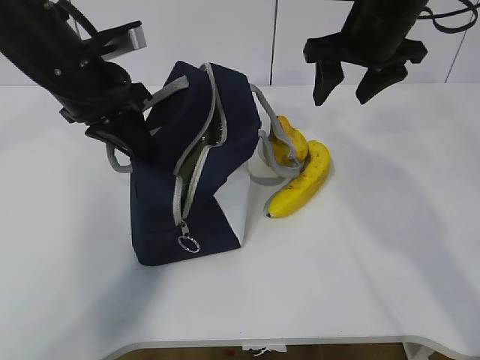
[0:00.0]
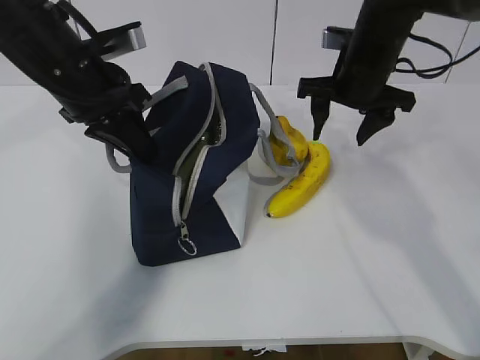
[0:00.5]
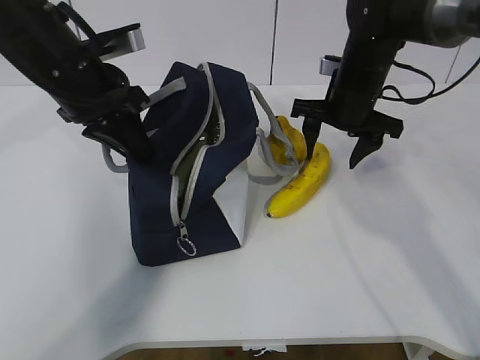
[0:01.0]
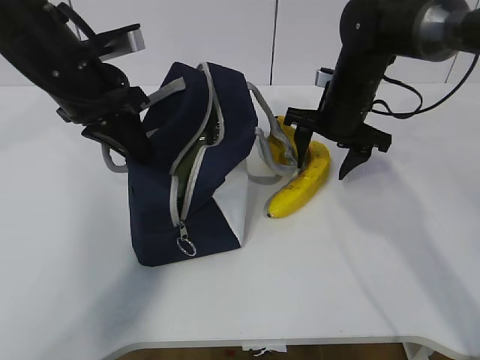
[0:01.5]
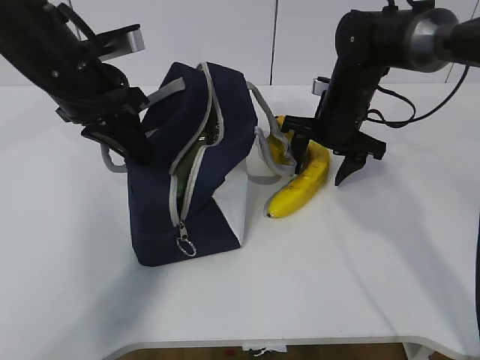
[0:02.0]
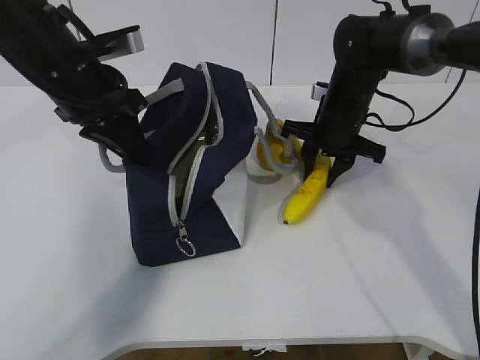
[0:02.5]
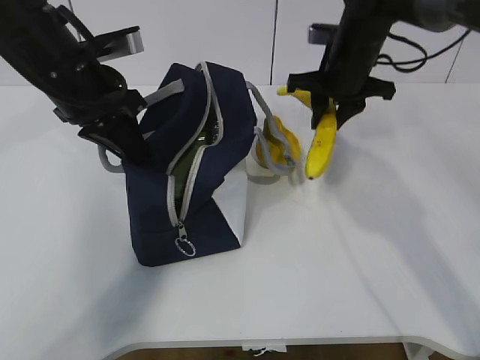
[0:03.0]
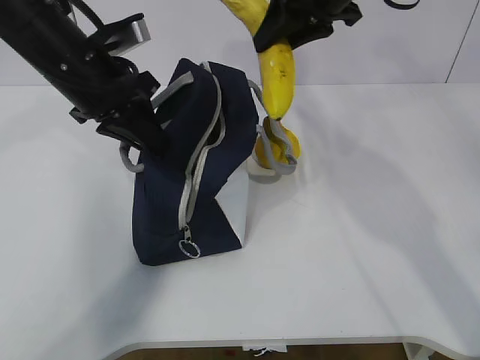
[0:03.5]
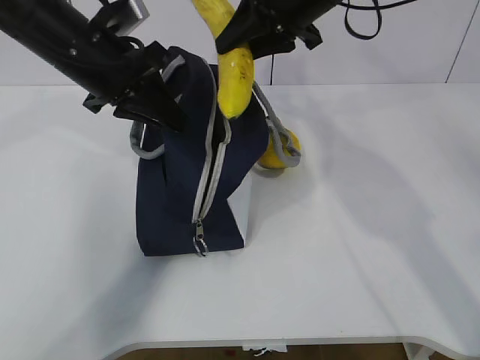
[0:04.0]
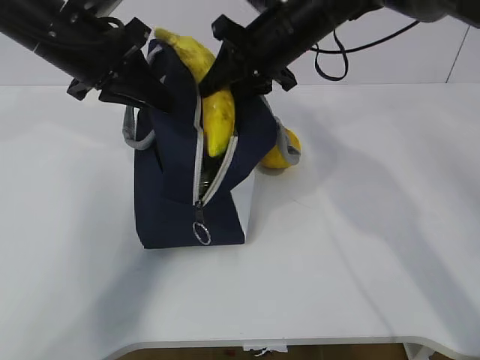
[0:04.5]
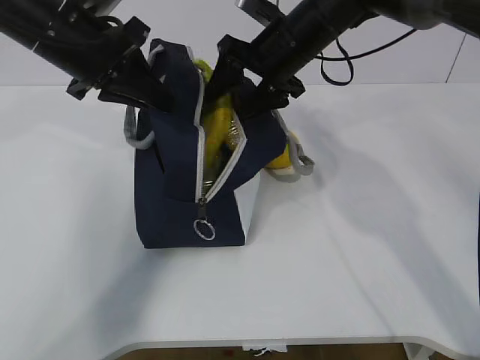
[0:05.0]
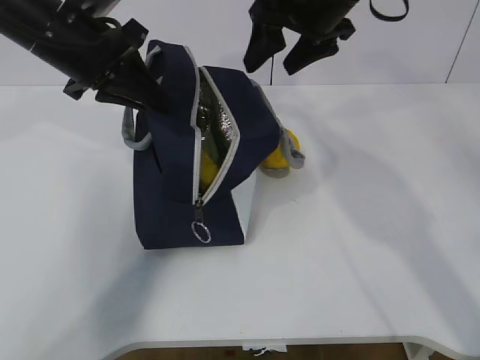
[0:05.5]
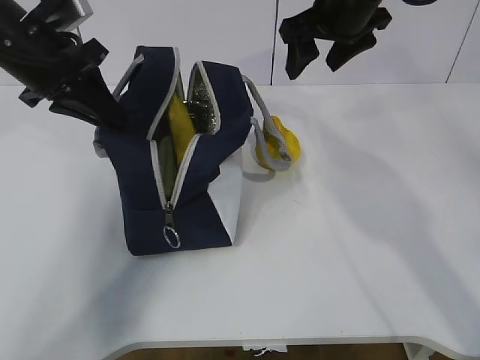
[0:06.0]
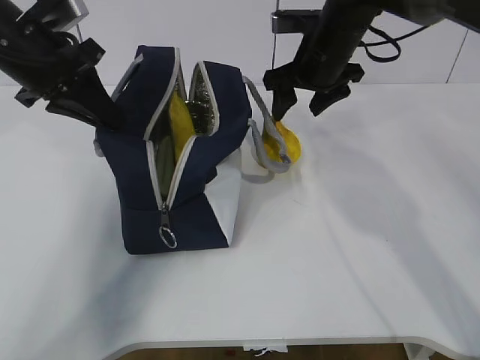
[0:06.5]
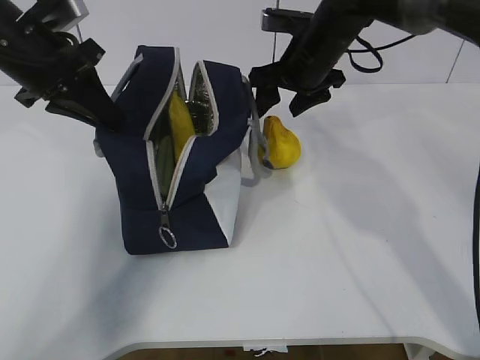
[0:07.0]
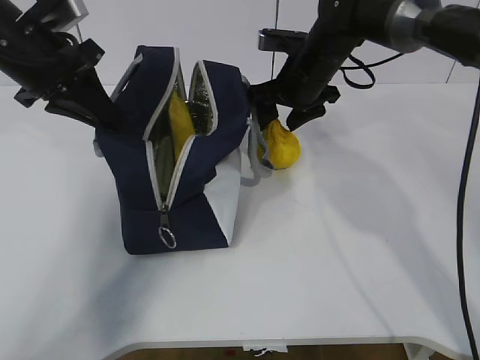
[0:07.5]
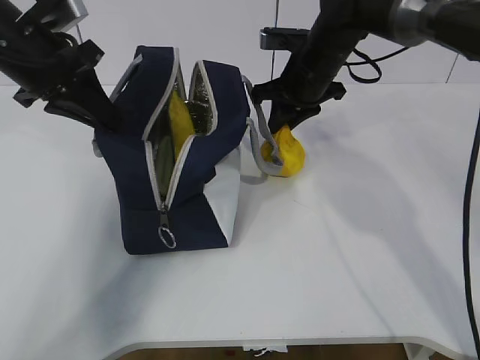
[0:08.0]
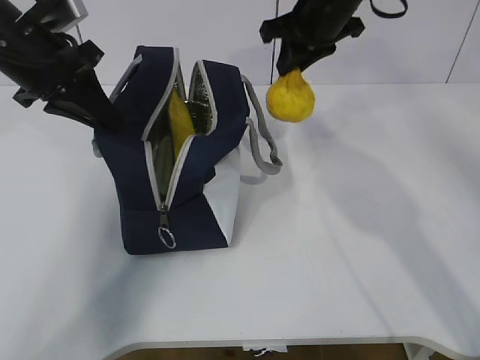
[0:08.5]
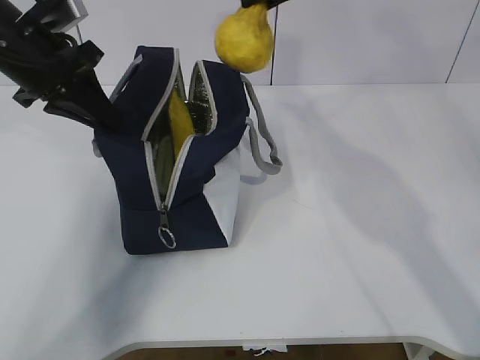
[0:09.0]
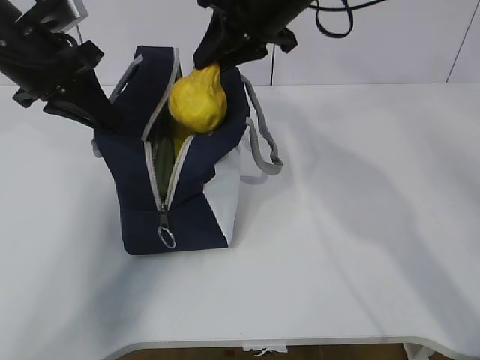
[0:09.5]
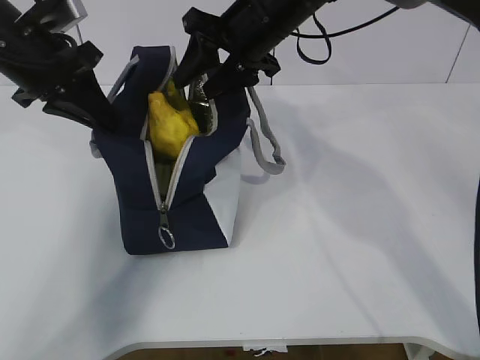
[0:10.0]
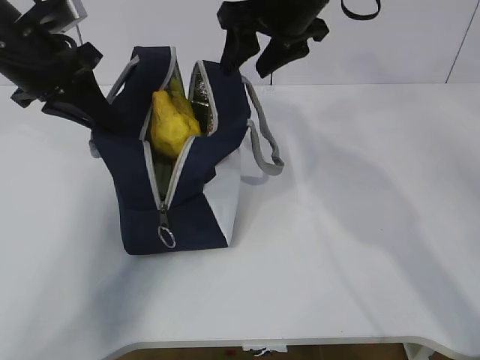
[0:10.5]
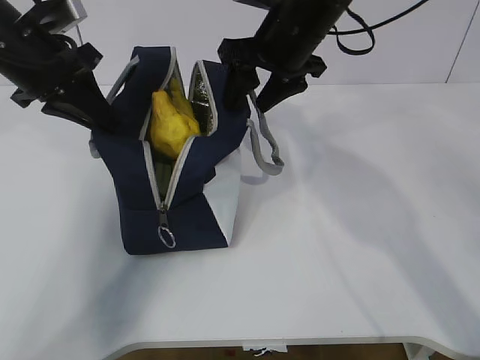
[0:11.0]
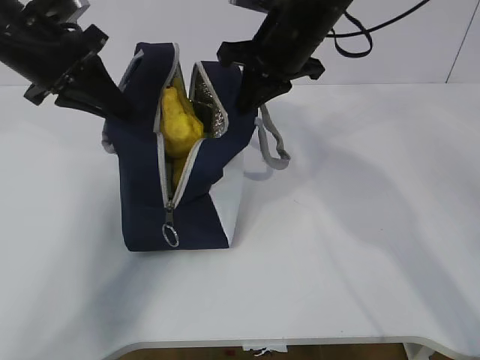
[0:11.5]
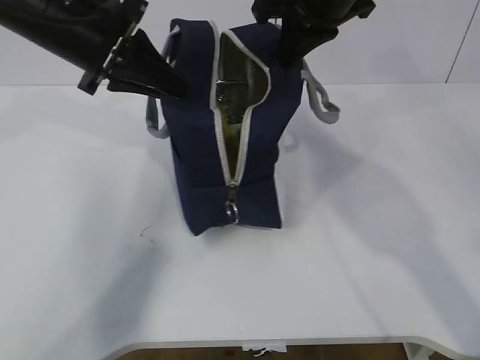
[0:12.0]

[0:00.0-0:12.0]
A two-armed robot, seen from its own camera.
Step, 0.0 to 1.5 s: Place it into the bag with your right hand.
Step, 2.0 to 3.5 s: Grab the pear with your right hand.
Step, 6.0 to 6.5 s: Grab the lunch bag with your right hand.
Step, 7.0 to 8.0 s: Move the lunch bag to the right.
0.0 to 2.0 s: The right gripper is displaced downward by some 15 cm.
2.0 to 4.0 s: The right gripper travels upward by roughly 15 cm, and closes its fingers.
4.0 to 6.0 s: The right gripper opens its fingers. Meanwhile the left gripper goes roughly 5 cm to the left.
6.0 to 8.0 s: The right gripper moves downward, about 10 cm, and closes its fingers.
8.0 to 10.0 s: The right gripper moves upward and to the left, about 10 cm, and opens up.
10.0 to 12.0 s: The left gripper ends up roughly 5 cm from where it was; the right gripper heads to the right and upward, covering about 10 cm, and closes its fingers.

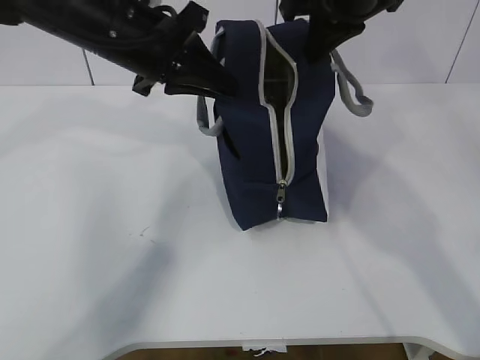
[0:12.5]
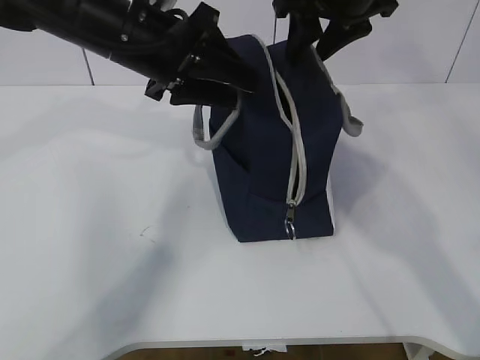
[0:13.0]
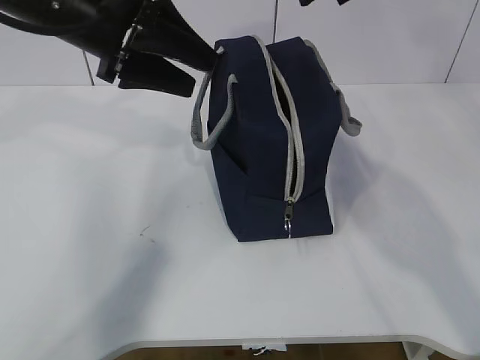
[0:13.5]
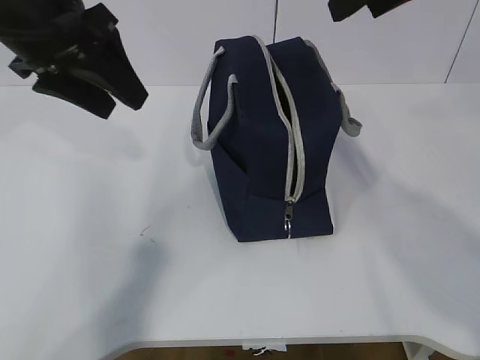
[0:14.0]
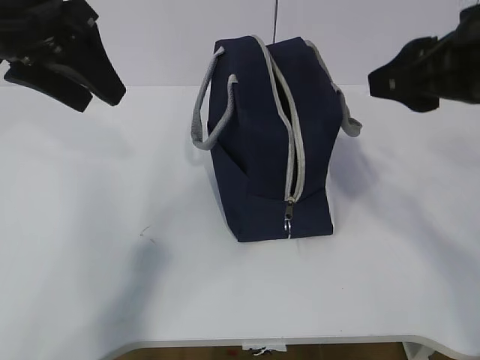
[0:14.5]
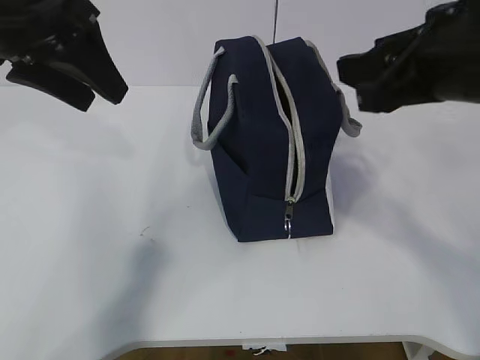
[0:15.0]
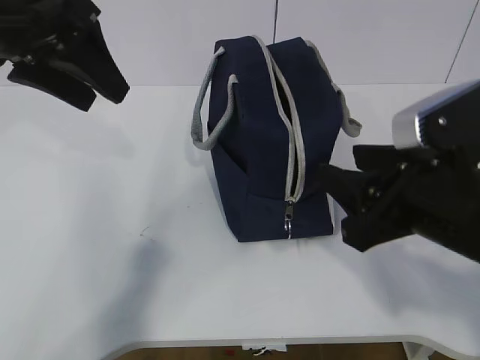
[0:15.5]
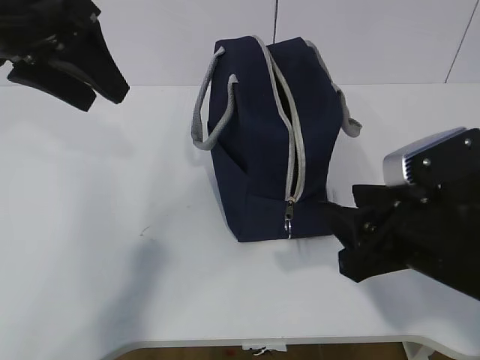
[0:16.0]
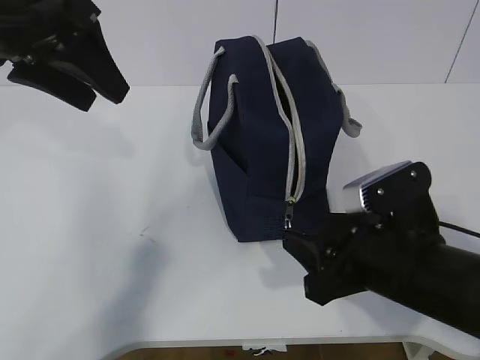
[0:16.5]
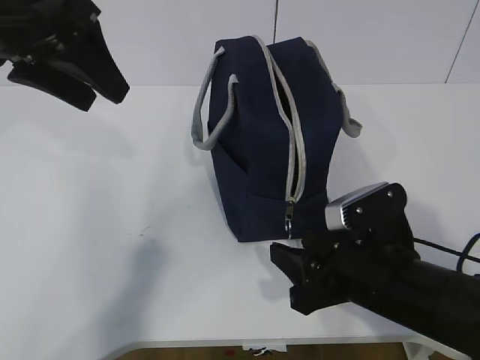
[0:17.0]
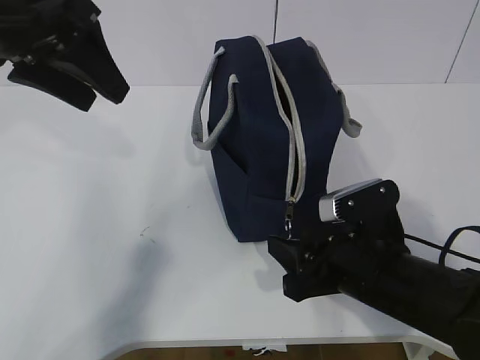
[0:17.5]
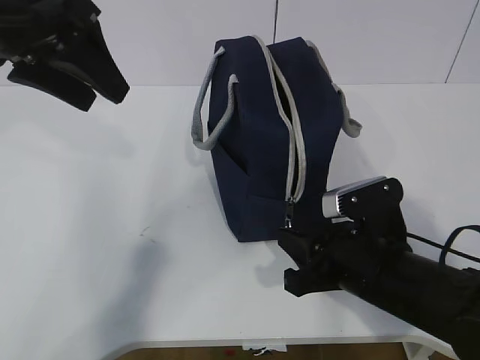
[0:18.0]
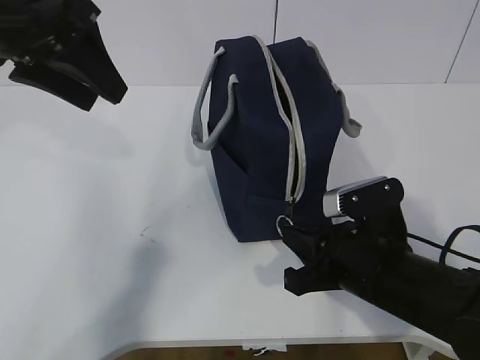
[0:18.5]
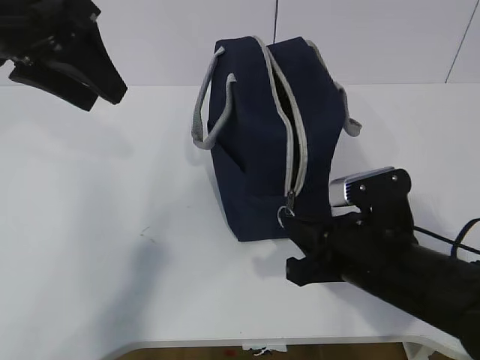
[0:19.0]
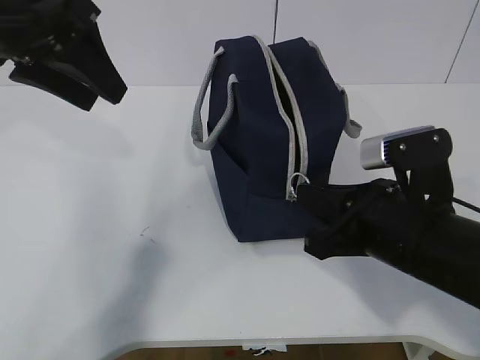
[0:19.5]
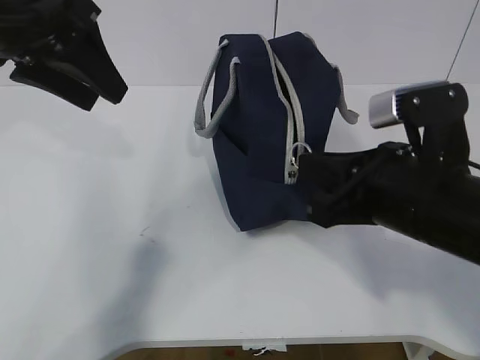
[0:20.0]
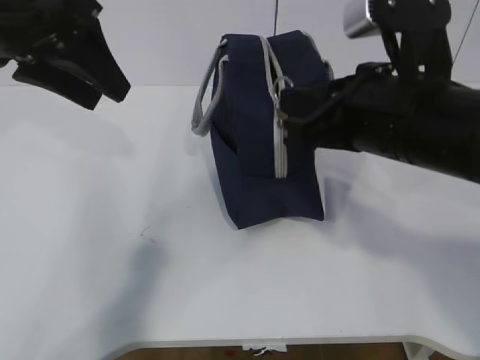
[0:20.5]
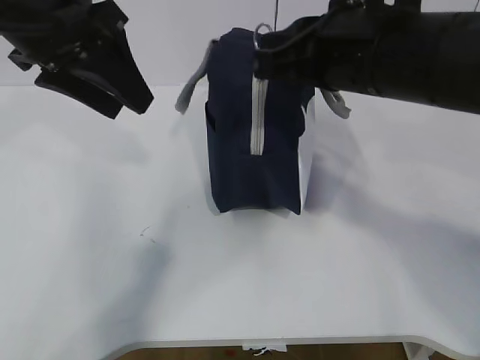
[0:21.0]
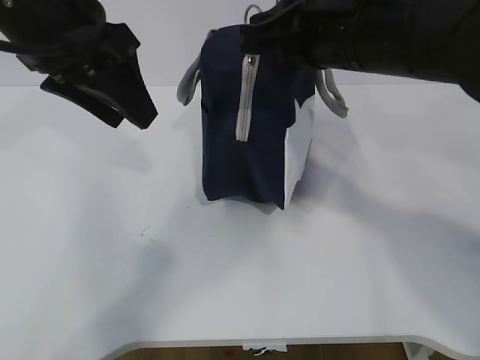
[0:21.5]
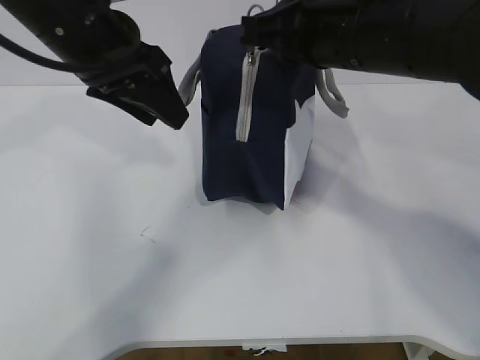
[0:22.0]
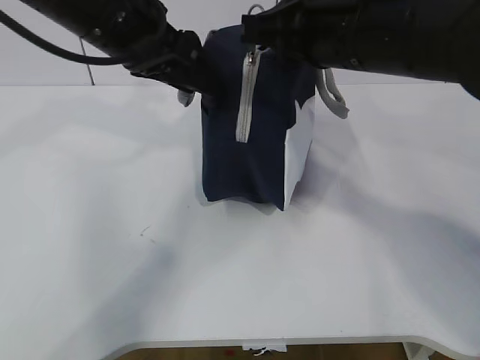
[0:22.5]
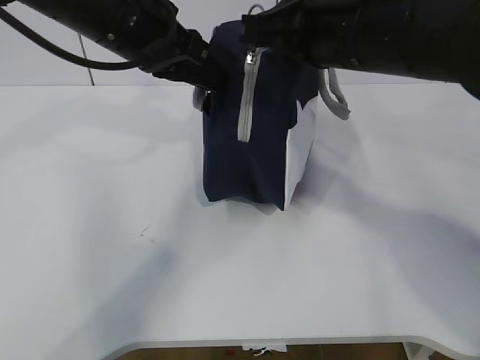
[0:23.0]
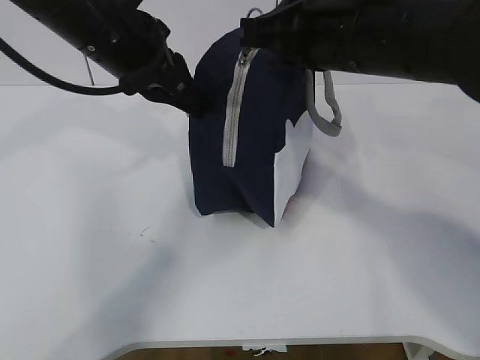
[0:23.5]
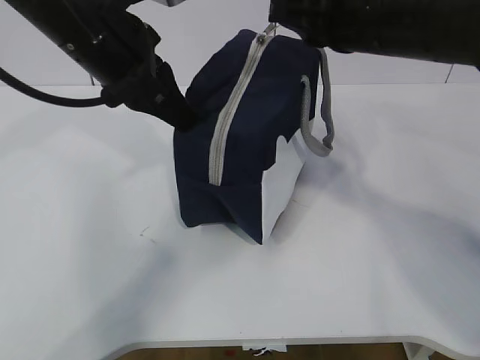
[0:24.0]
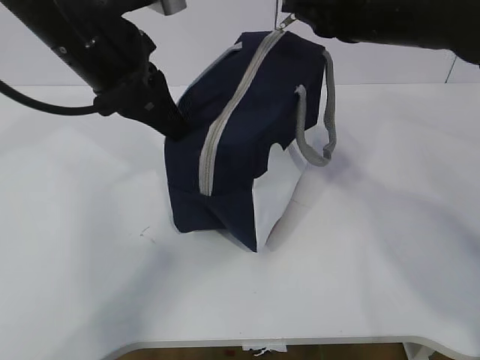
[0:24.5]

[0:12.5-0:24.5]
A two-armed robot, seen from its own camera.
Step, 12.5 to 18.0 s: Grab the lunch bag with your left hand.
Step, 18.5 to 22.0 s: Pull the zipper with your right hand.
Step, 22.5 to 23.0 s: Grab the lunch bag with your left hand.
12.5 to 14.5 s: The right gripper goes some 15 cm backward, and opens. Meanwhile the left gripper goes about 10 cm to the left and upward, and opens.
14.5 to 16.5 s: The right gripper heads downward, covering about 15 cm.
16.5 to 18.5 s: The right gripper closes up.
18.5 to 20.5 s: The right gripper goes some 15 cm upward.
20.5 to 22.5 s: The right gripper is displaced upward by some 5 cm, while the left gripper shifts about 5 cm to the right.
22.5 to 24.5 s: The right gripper heads forward, covering about 5 cm, while the left gripper closes.

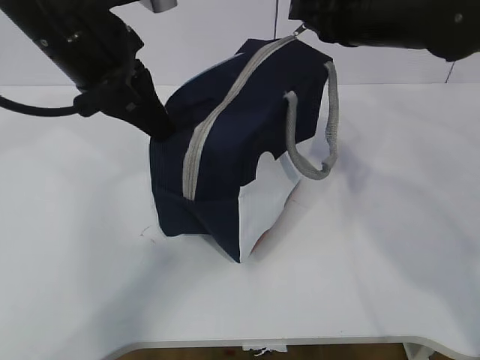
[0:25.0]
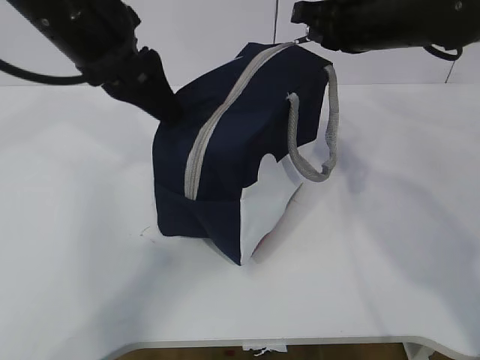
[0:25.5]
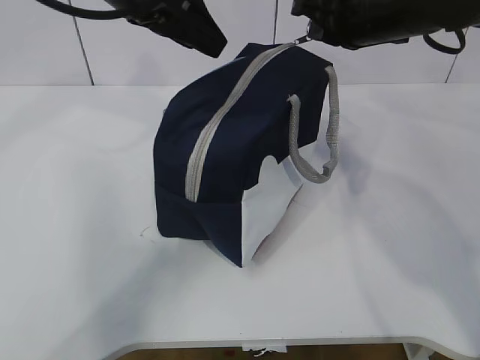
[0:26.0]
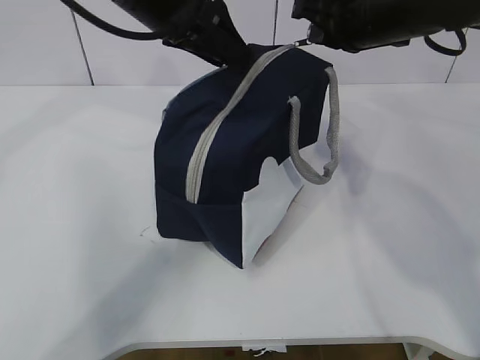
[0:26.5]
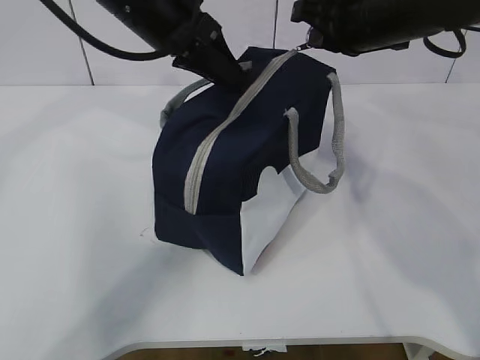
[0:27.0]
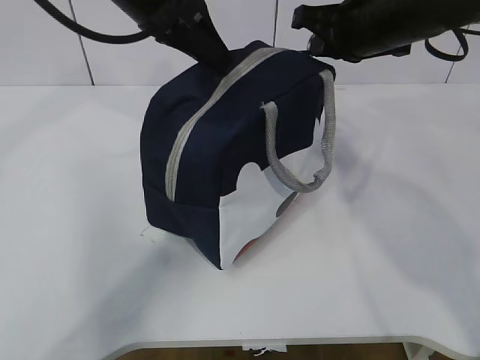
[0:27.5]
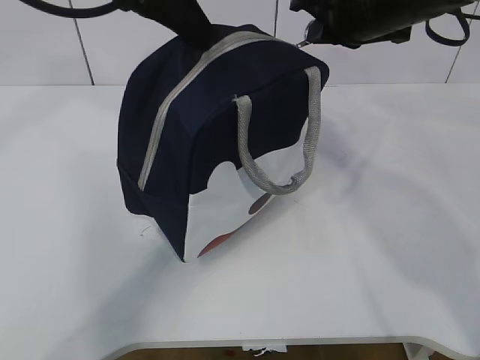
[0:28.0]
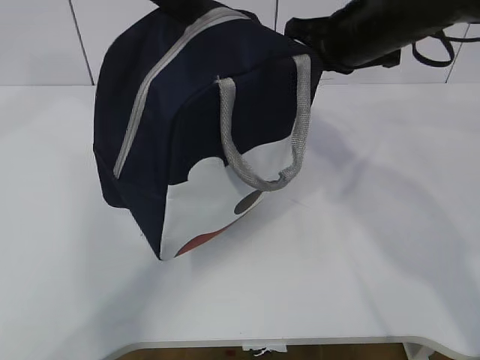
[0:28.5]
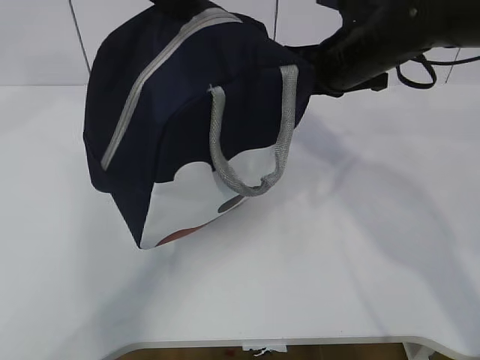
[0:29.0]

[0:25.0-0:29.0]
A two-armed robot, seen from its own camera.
25.0 to 27.0 s: The left gripper goes some 5 cm forward, and opens and closes again.
27.0 to 29.0 s: The right gripper moves some 5 cm; the left gripper shifts roughly 10 cm upward.
